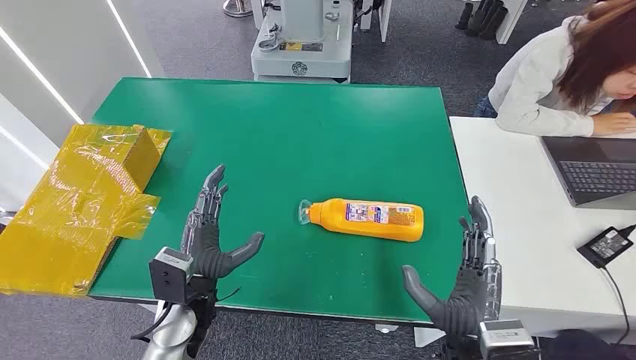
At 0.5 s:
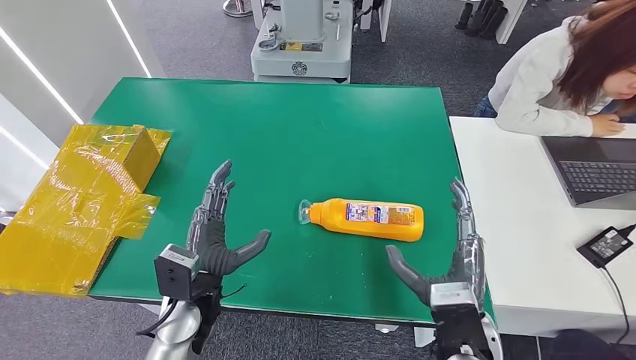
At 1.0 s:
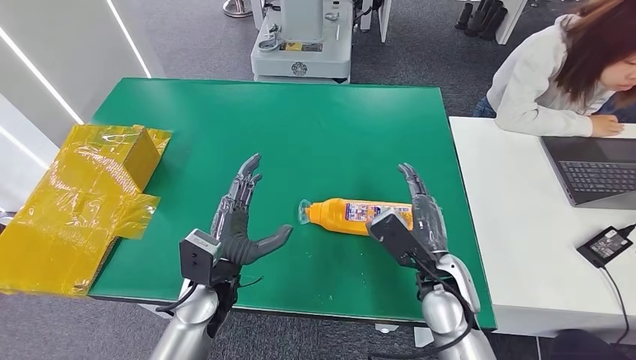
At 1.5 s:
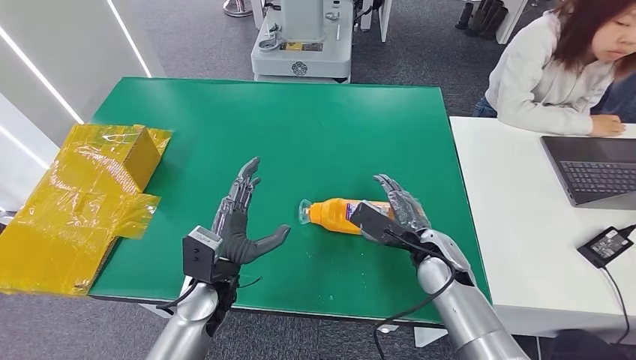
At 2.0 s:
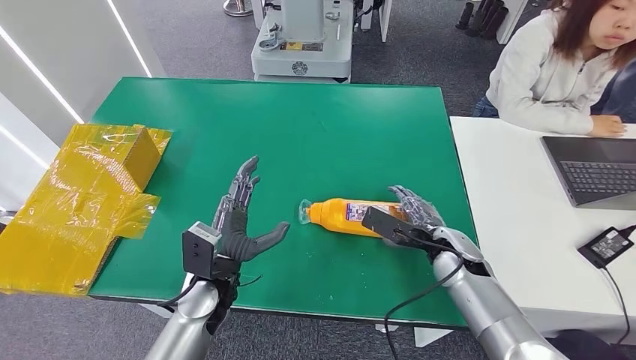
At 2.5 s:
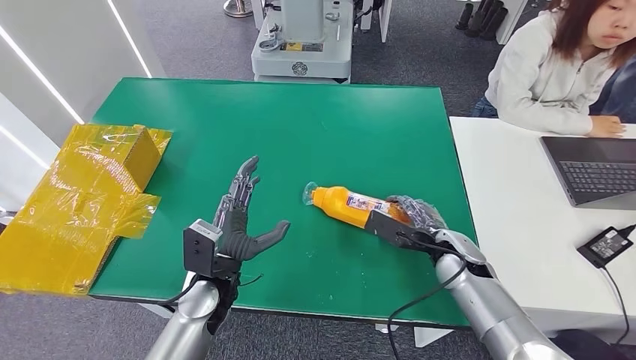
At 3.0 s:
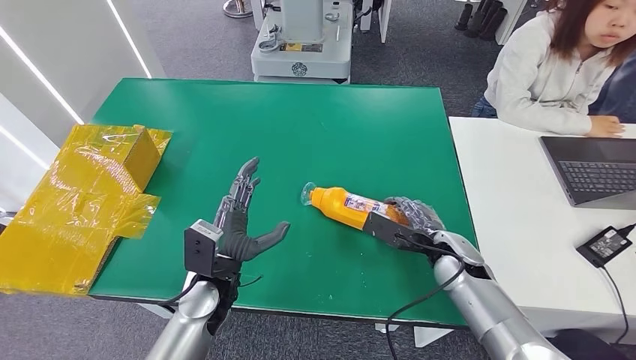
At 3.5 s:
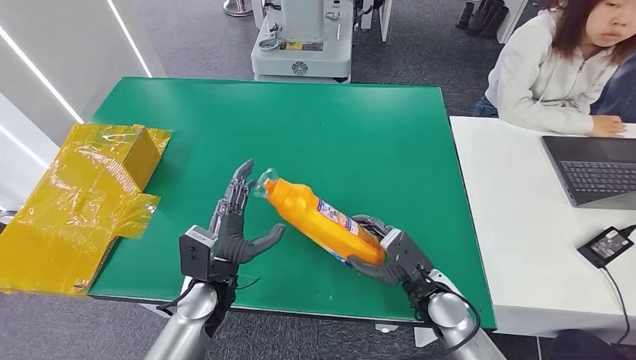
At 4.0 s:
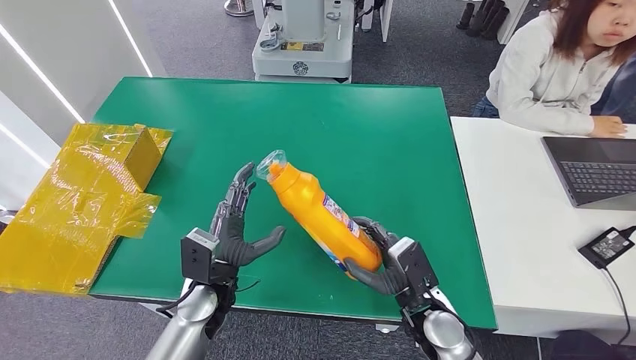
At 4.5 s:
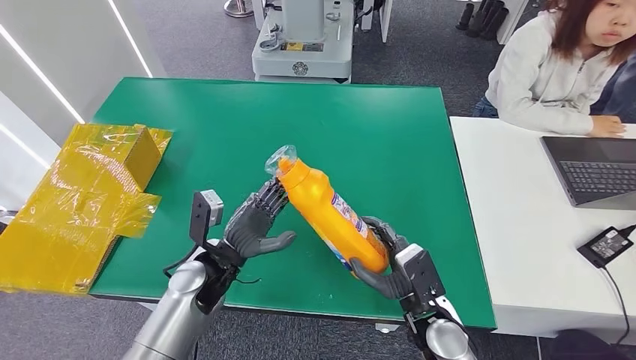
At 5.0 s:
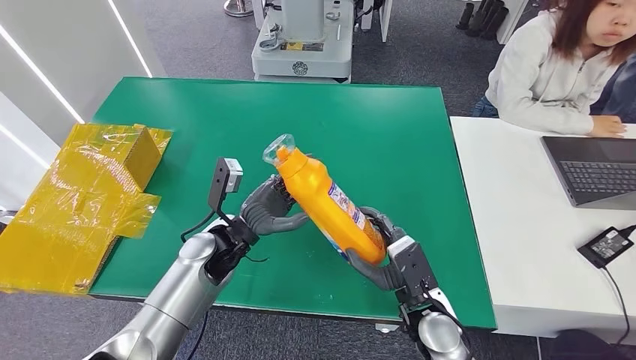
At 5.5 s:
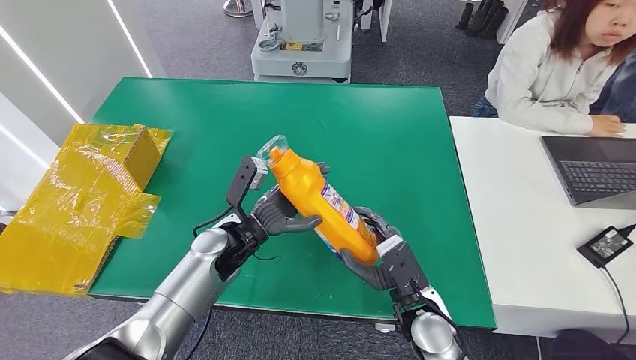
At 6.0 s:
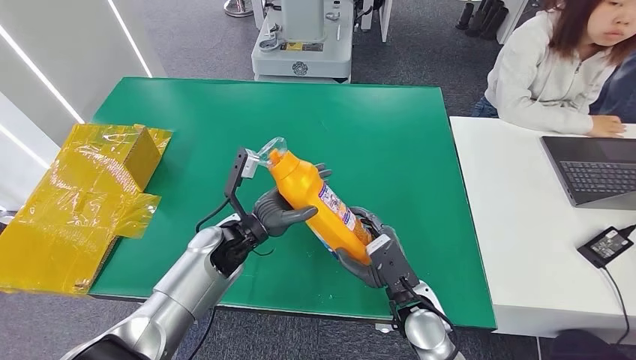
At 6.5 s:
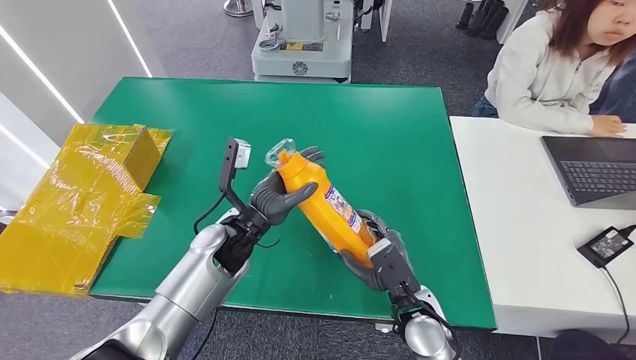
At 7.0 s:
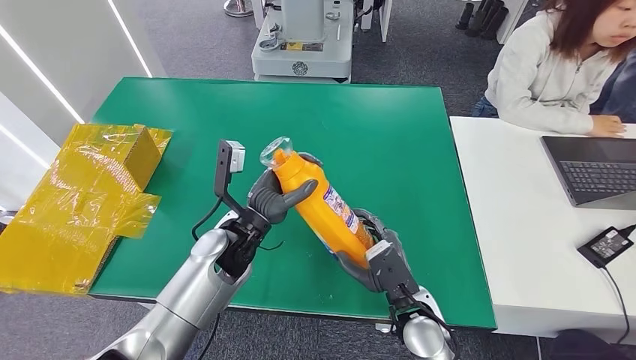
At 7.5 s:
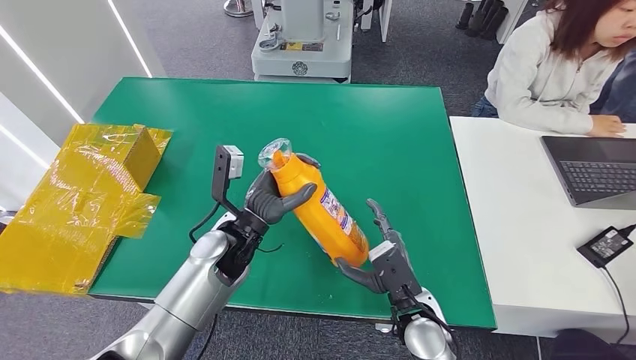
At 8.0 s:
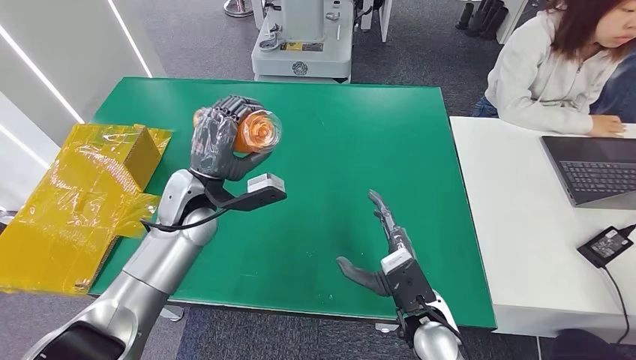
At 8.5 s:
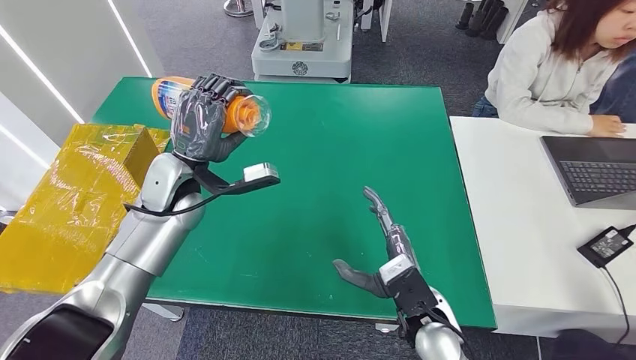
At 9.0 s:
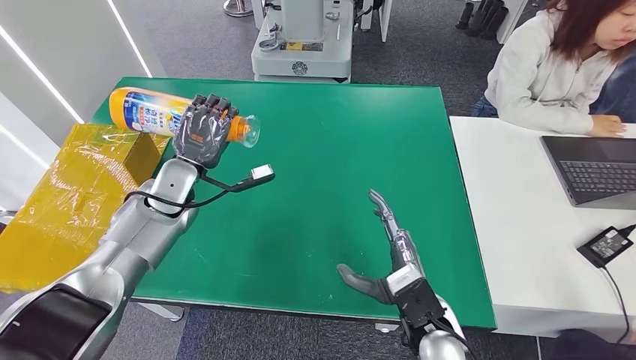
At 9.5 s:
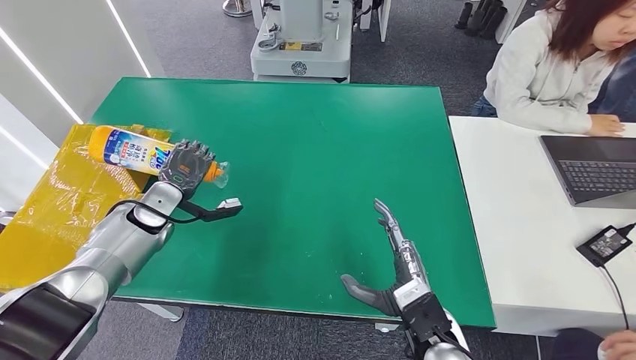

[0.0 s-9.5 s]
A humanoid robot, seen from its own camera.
Step, 0.0 to 7.0 s: Pick up the bottle from the table.
Step, 8.0 to 9.5 s: Turn the bottle to the front side.
2.0 to 4.0 s: The right hand is displaced backward and to the left by roughly 10 cm.
4.0 to 5.5 s: The left hand travels forward by approximately 10 cm.
5.5 to 7.5 s: The hands make only small movements.
